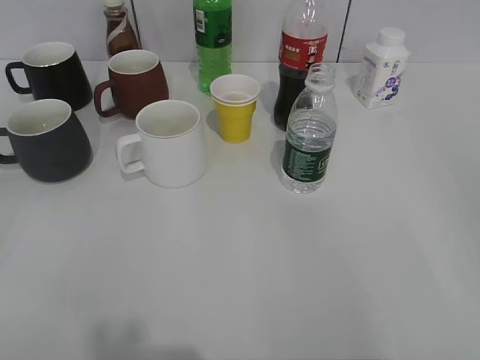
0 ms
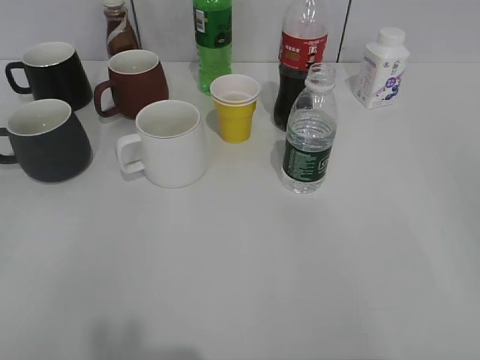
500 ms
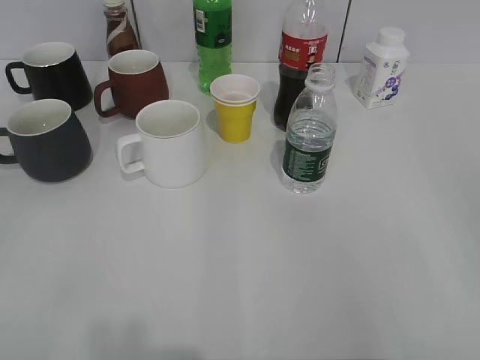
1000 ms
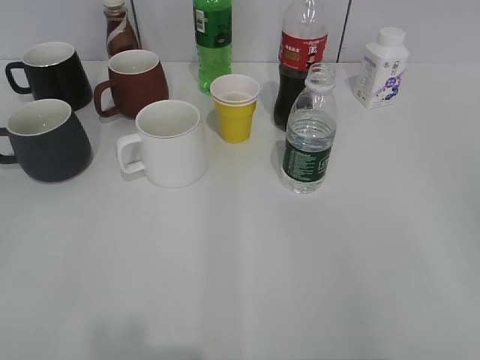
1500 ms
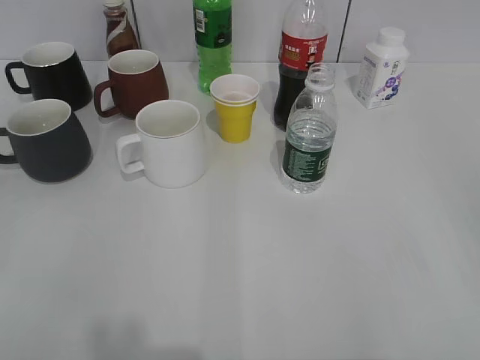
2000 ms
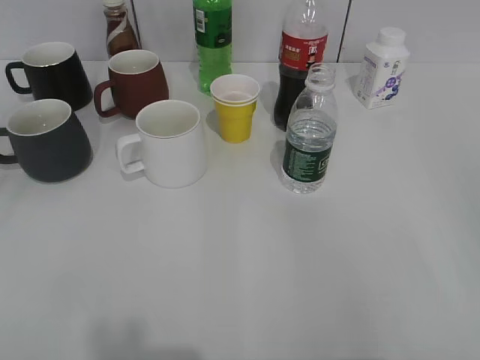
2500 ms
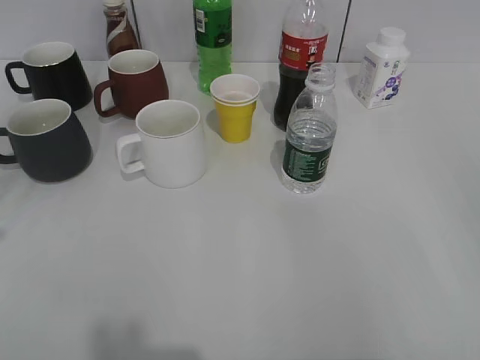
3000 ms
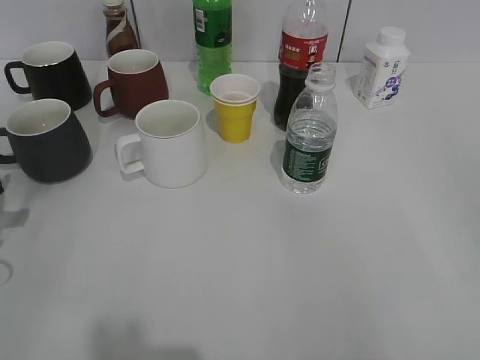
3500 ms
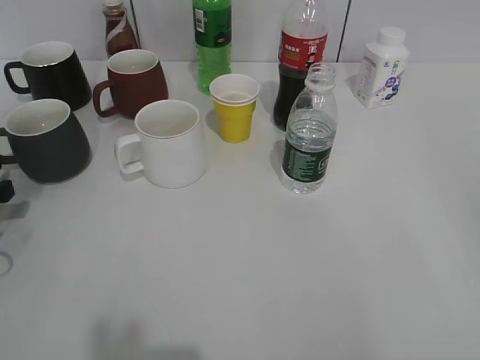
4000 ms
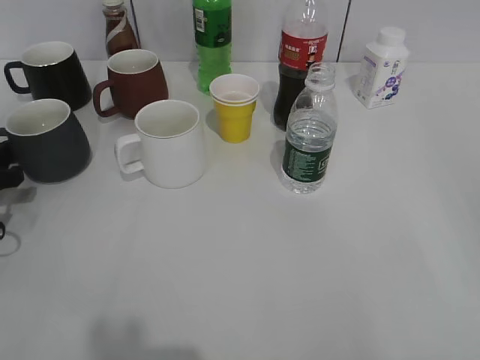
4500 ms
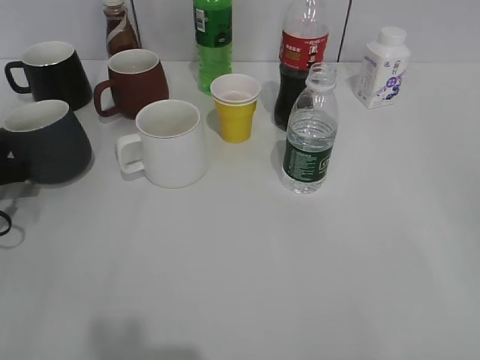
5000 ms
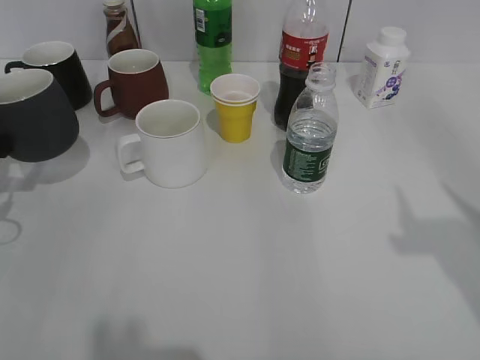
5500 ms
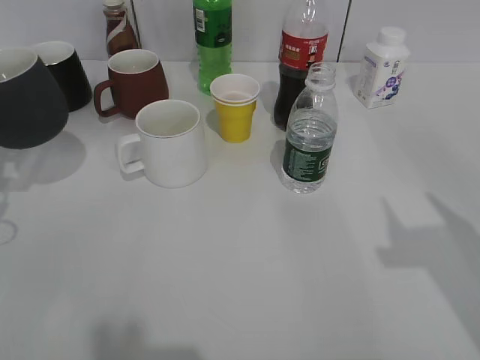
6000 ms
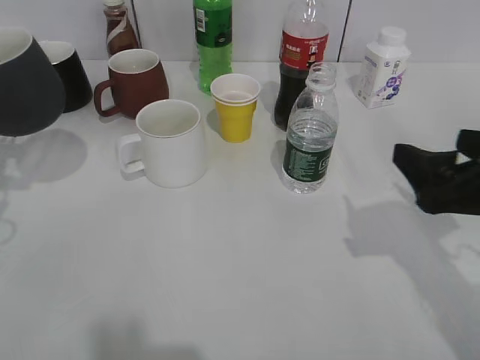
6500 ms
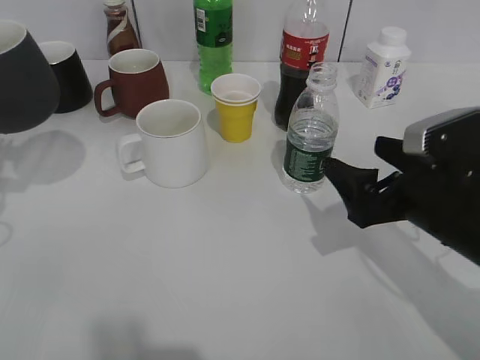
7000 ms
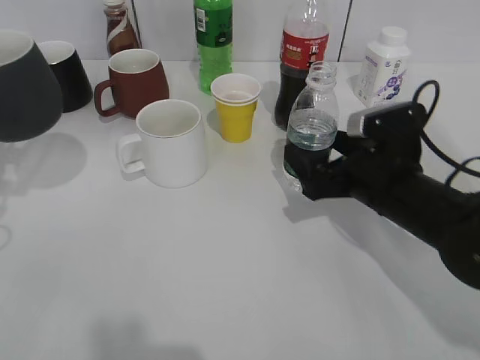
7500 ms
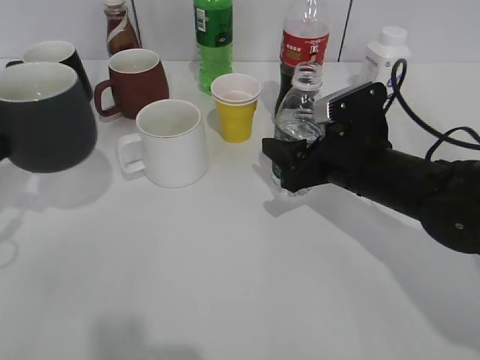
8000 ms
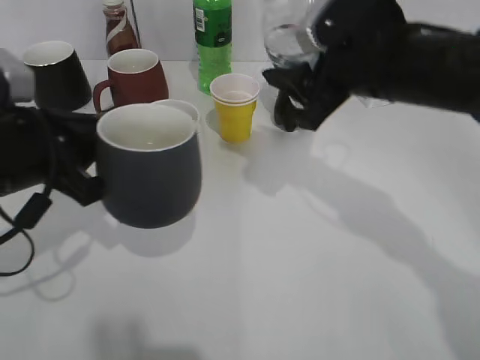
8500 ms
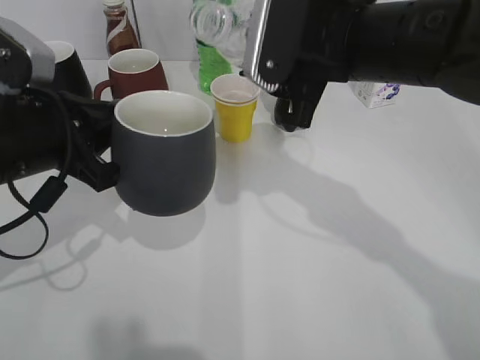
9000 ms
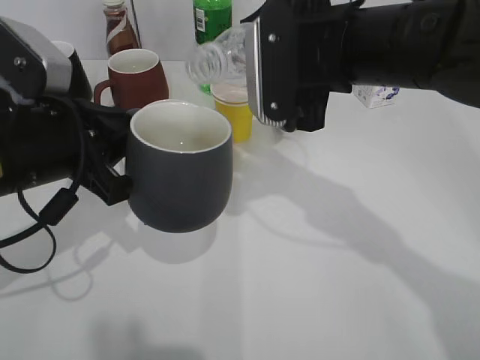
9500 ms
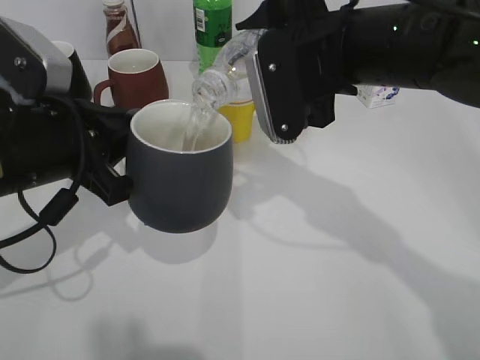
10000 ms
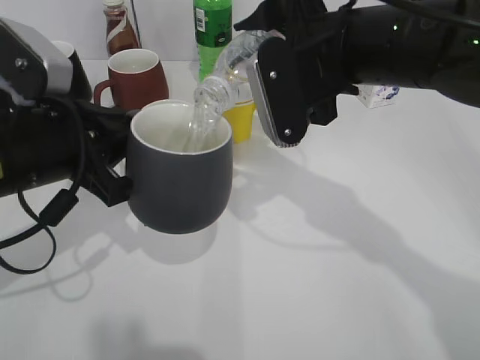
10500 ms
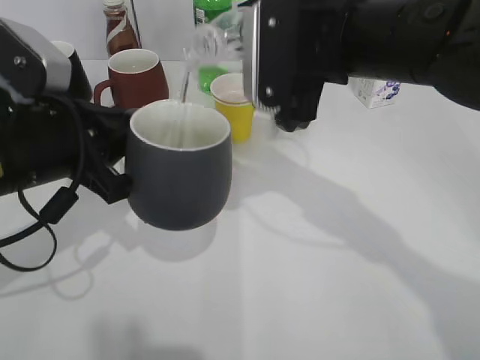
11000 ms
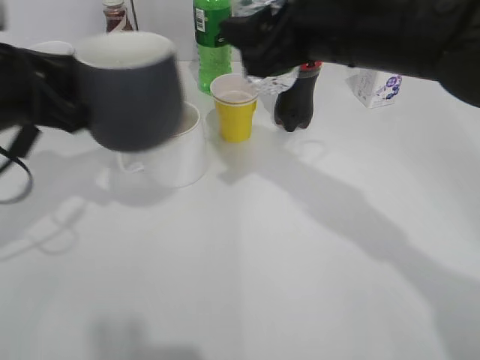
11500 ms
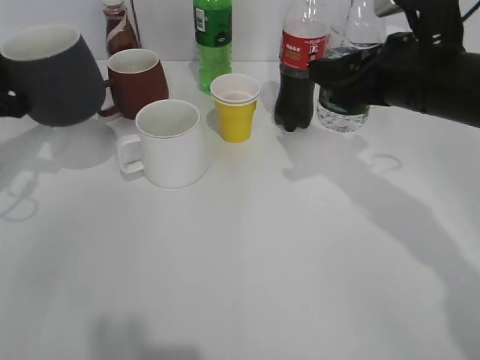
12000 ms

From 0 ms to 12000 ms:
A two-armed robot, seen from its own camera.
Step, from 2500 ms to 5000 ms: Grasp the black cup with left gripper.
Step, from 5500 ms to 6000 ms: Lift the black cup with left gripper.
Step, from 6500 ms to 7500 ms: Grasp the bottle with water with right gripper.
Step, from 8000 ms to 11000 ms: Pour the water from bottle to cup with right gripper.
From 2000 ms to 4000 ms: The left gripper goes approximately 30 cm forward and downward.
From 4000 ms to 6000 ms: The left gripper heads upward, covering roughly 5 cm, and closes its fingers, while the right gripper shifts approximately 15 cm forward, and closes its fingers.
From 6000 ms to 8000 ms: The right gripper shifts about 25 cm forward, to the left and downward, and opens, then closes once more.
From 8000 ms to 10000 ms: The left gripper travels to the right by roughly 10 cm. The right gripper moves upward, about 15 cm.
From 10000 ms to 12000 ms: The right gripper moves to the right, some 10 cm, while the left gripper moves to the left and forward, approximately 15 cm.

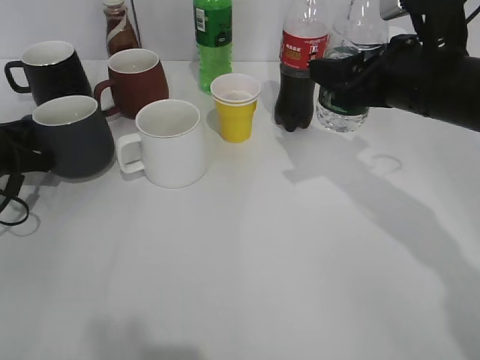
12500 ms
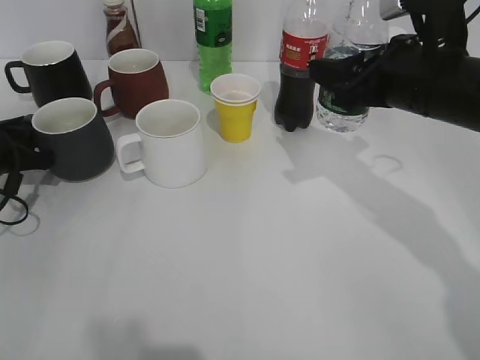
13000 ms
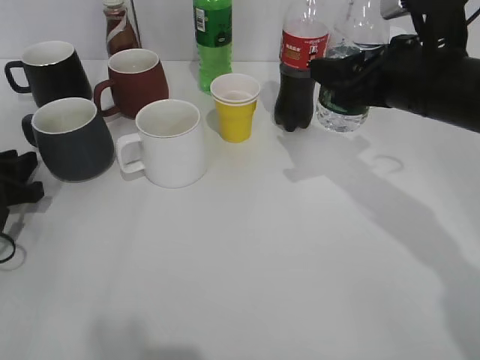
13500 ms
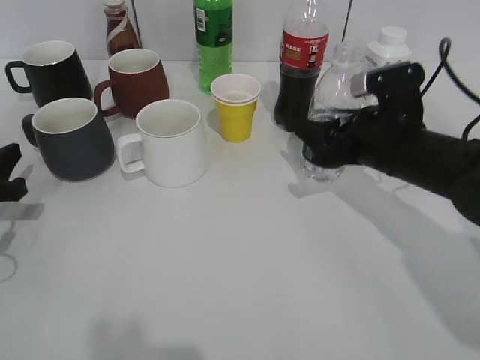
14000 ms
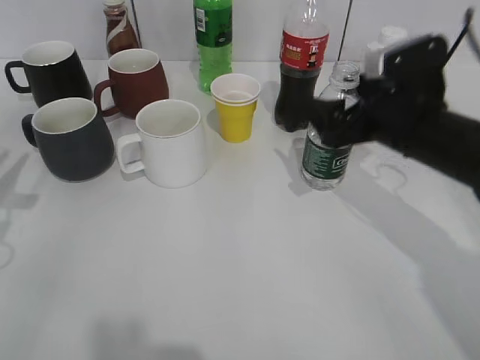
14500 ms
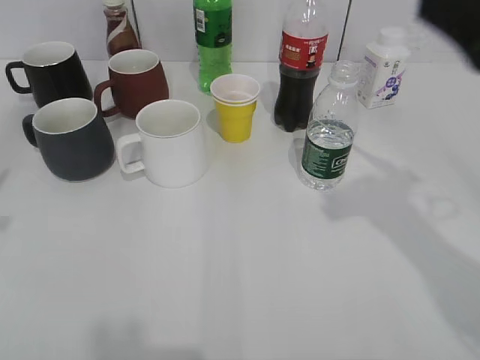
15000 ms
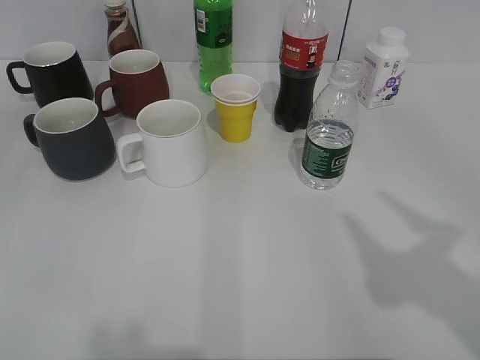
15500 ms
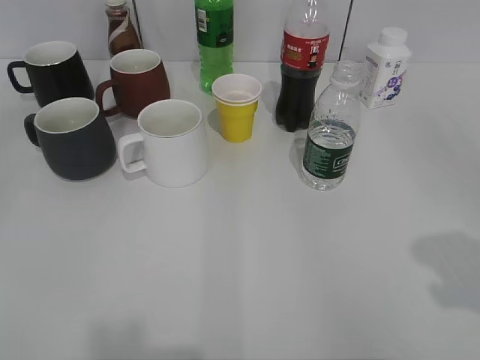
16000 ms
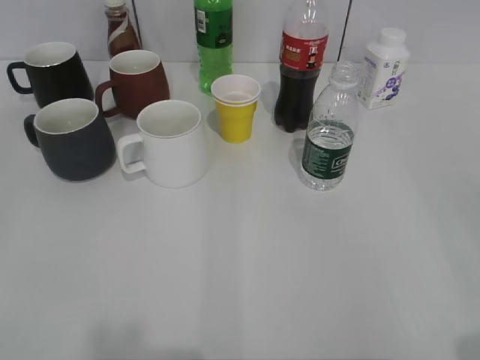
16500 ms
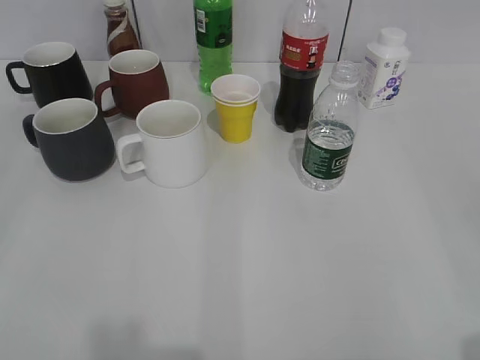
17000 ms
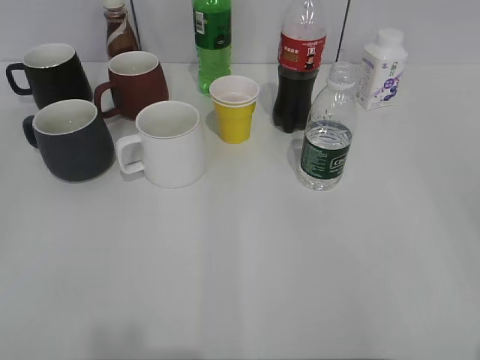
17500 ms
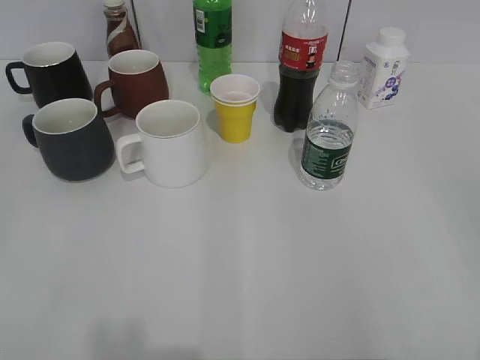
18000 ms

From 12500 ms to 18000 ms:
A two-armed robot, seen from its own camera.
Step, from 14000 ms to 14500 ms: Place the water bottle on the table with right gripper.
From 12500 ms to 14500 ms: The right gripper moves downward, some 5 cm, and opens. The left gripper is displaced backward and upward by some 10 cm, and opens.
From 14500 ms to 16000 ms: The left gripper is displaced backward and upward by about 25 cm, and opens its fingers. Meanwhile the right gripper heads backward, upward and to the right, covering approximately 25 cm, and closes.
From 16000 ms to 18000 ms: The right gripper is displaced backward by about 10 cm, while the left gripper travels downward by roughly 5 cm.

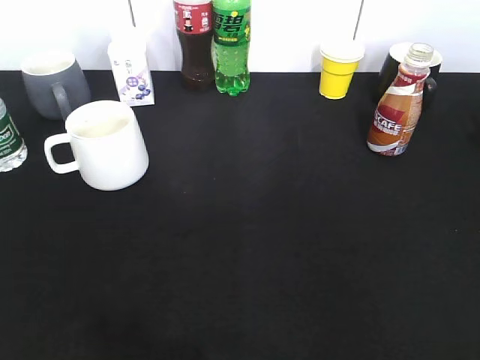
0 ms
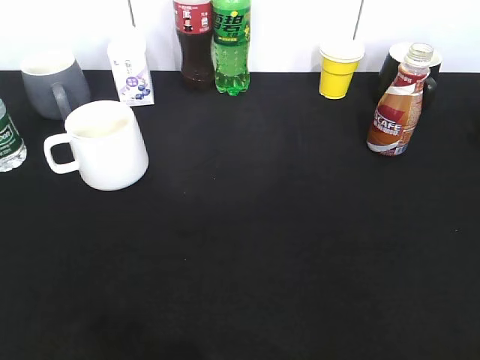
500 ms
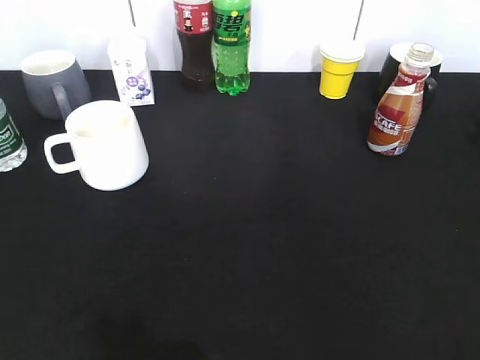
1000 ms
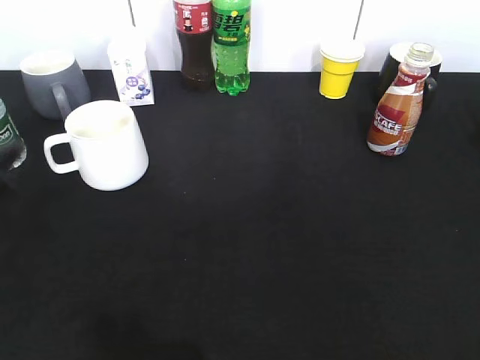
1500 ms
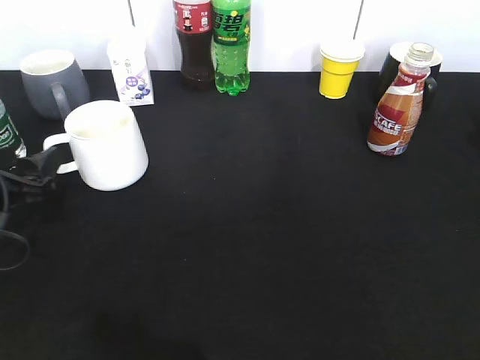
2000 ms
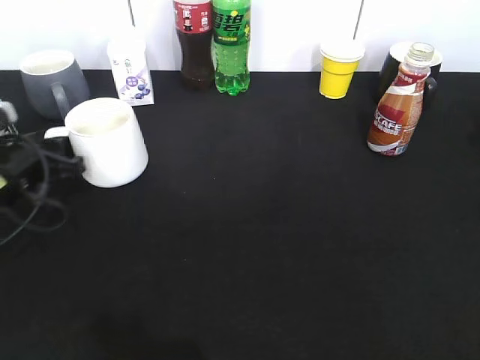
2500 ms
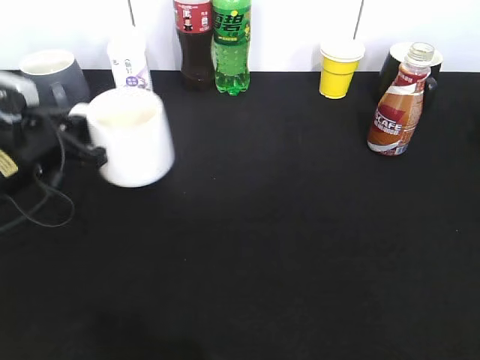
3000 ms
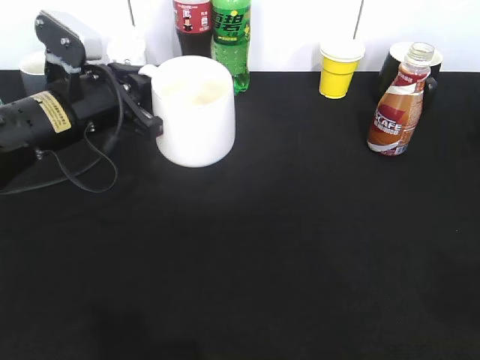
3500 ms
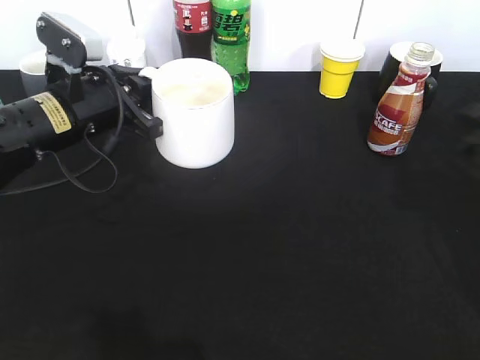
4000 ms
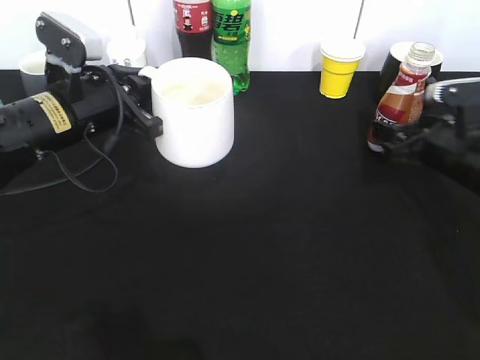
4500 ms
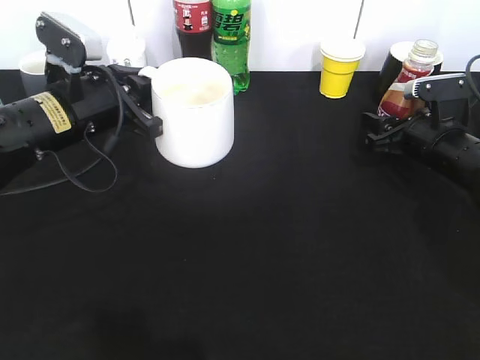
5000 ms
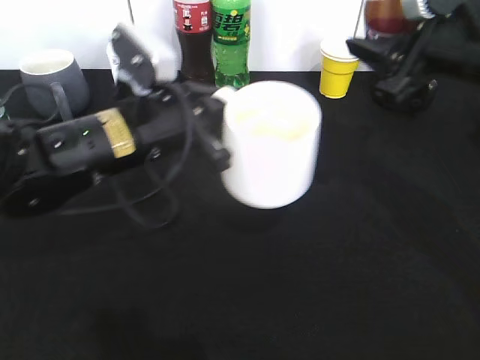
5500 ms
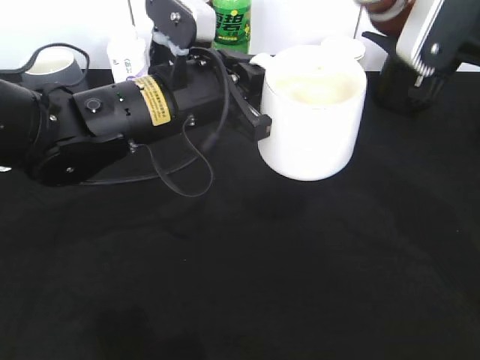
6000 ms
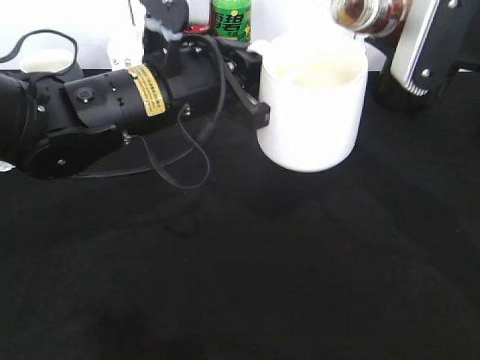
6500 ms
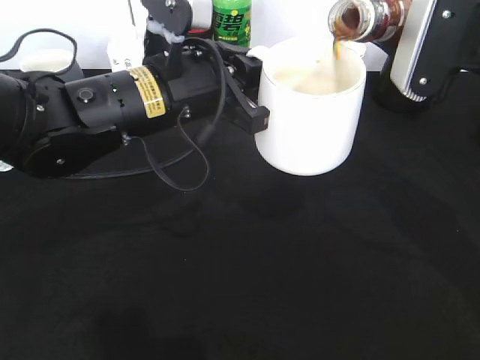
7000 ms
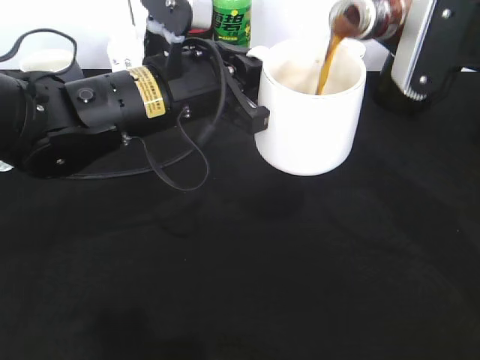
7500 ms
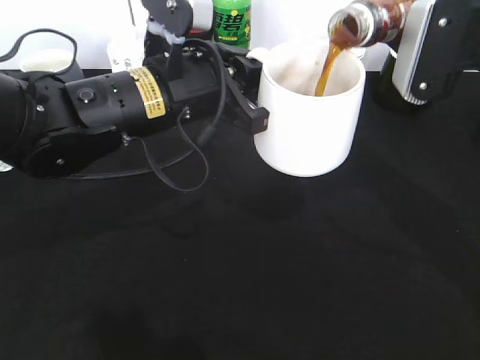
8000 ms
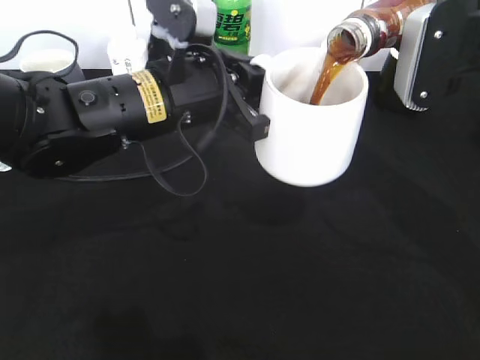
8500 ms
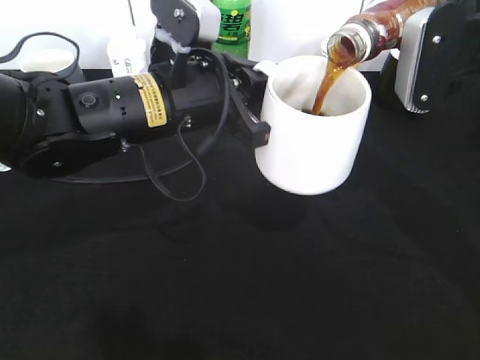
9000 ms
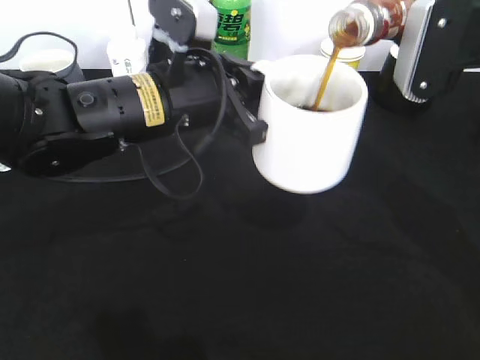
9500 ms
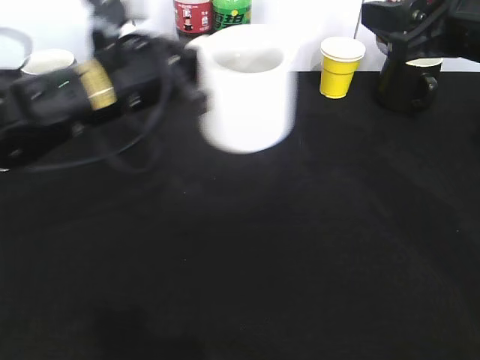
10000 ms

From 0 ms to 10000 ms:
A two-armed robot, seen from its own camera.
Step, from 1000 ms to 2500 ms: Grasp the white cup with left gripper.
Step, from 3500 ms to 5000 ms: Grasp the bottle with coffee with right gripper.
Step, from 5500 ms to 9500 ms: Pour the coffee from bottle to cup with right gripper.
From 0 ms to 2000 ms: The left gripper travels forward and downward by approximately 30 cm, and opens up.
From 2000 ms to 4000 ms: The right gripper goes some 25 cm forward; the left gripper moves to the right, forward and upward, some 15 cm, and closes up.
From 4000 ms to 6000 ms: The right gripper goes approximately 15 cm upward and to the left, and closes up. Meanwhile the left gripper is displaced to the right by approximately 10 cm.
From 8000 ms to 10000 ms: The left gripper goes approximately 5 cm to the left.
